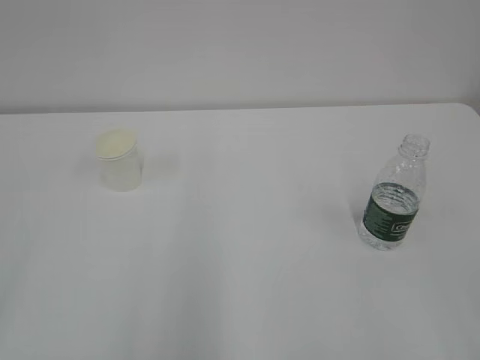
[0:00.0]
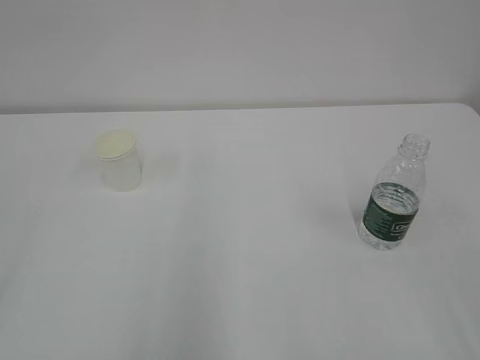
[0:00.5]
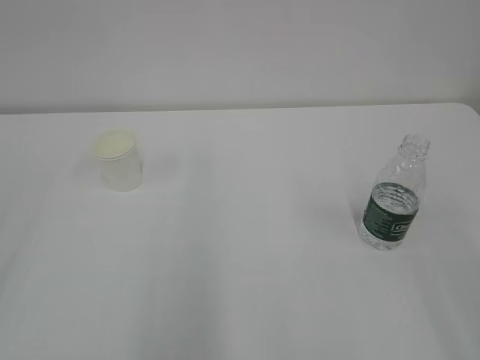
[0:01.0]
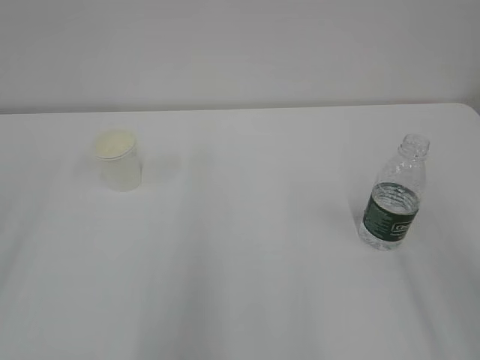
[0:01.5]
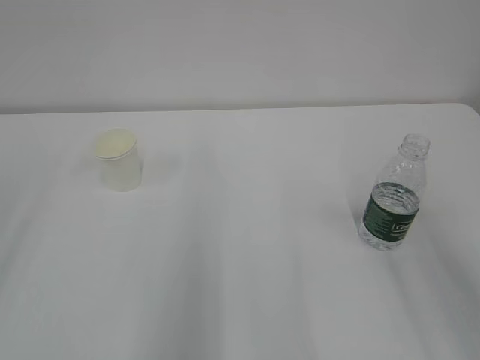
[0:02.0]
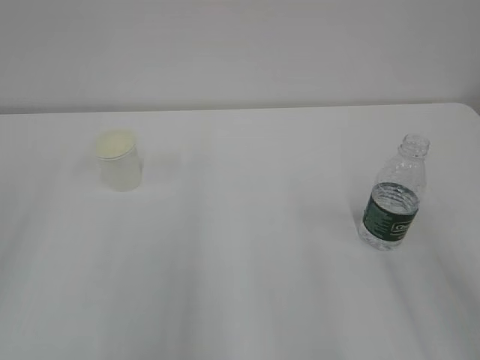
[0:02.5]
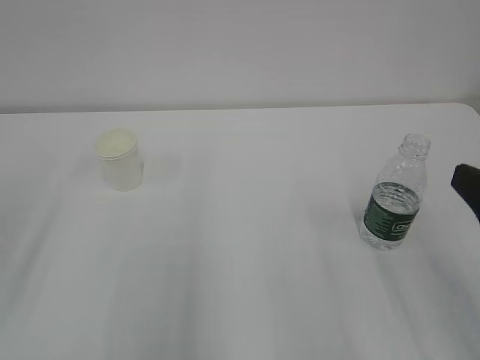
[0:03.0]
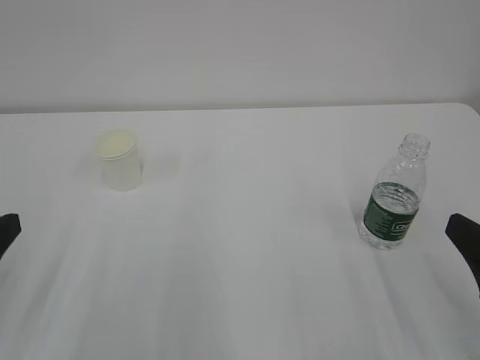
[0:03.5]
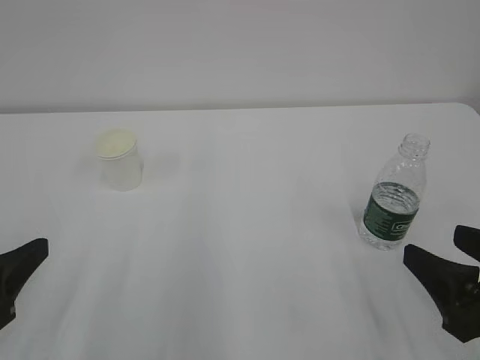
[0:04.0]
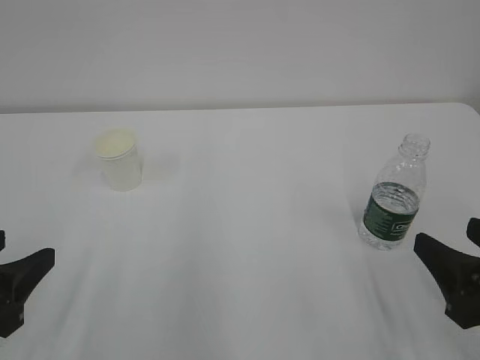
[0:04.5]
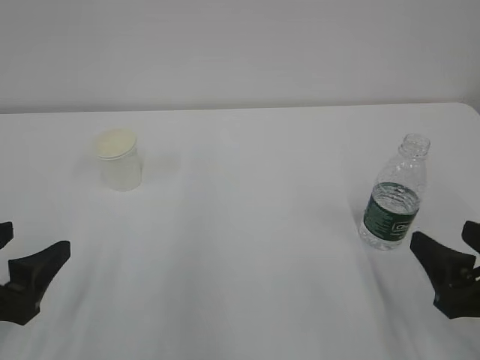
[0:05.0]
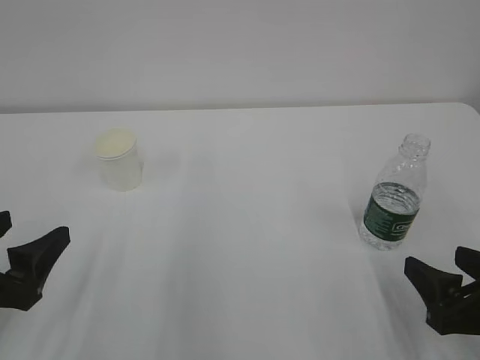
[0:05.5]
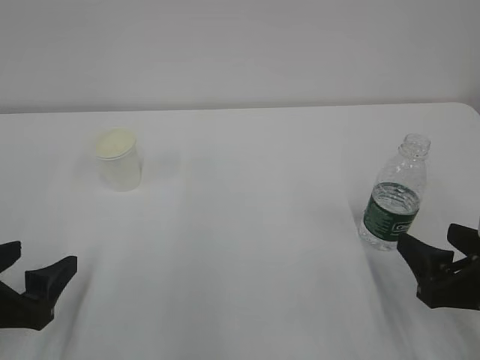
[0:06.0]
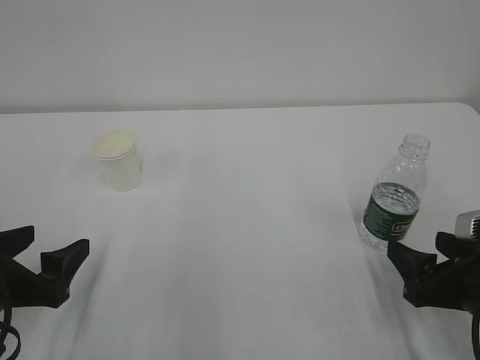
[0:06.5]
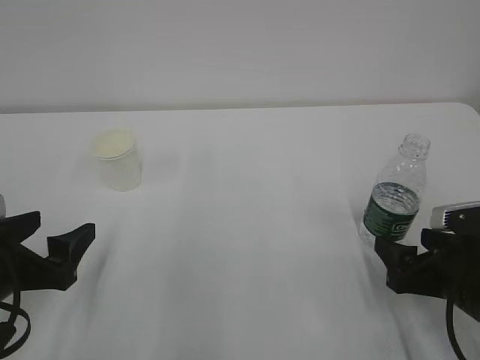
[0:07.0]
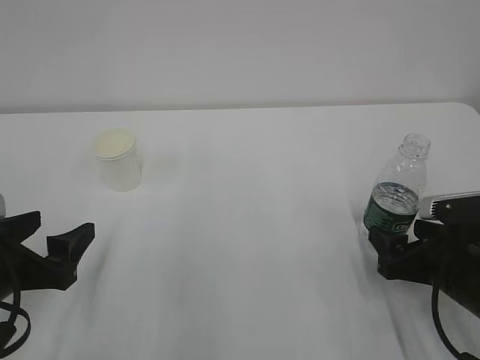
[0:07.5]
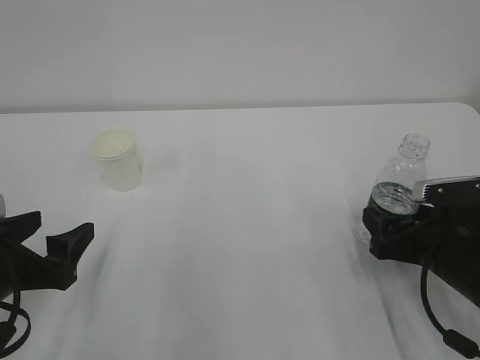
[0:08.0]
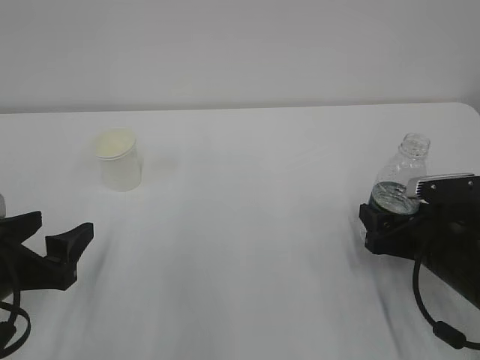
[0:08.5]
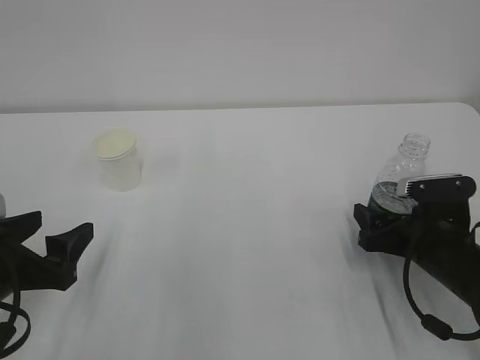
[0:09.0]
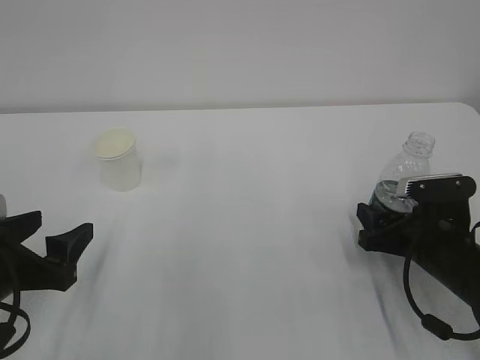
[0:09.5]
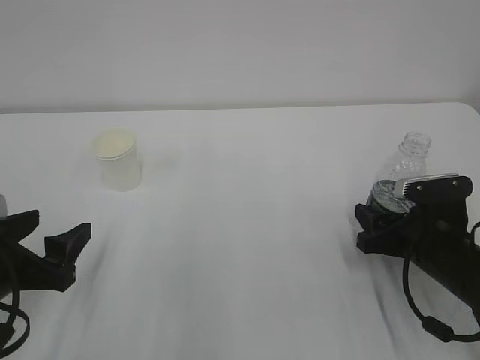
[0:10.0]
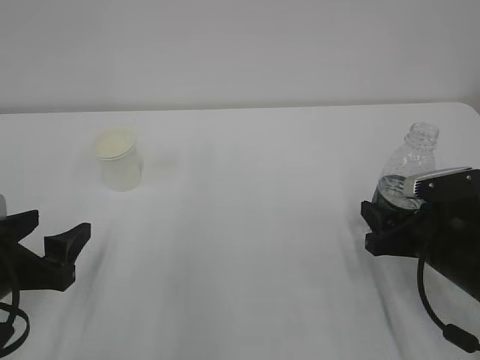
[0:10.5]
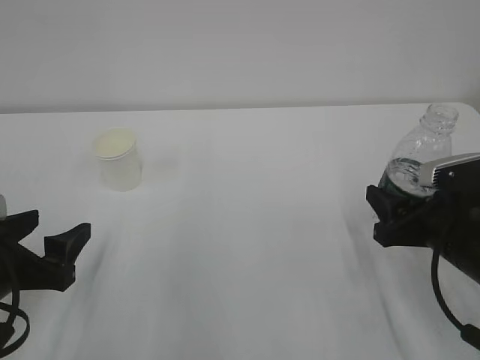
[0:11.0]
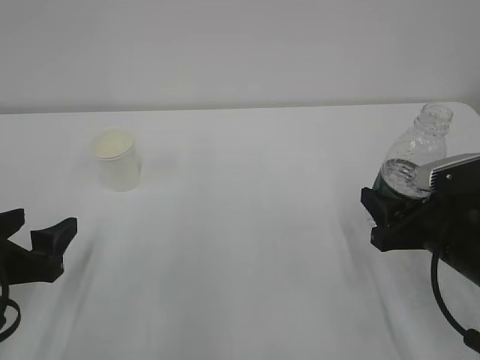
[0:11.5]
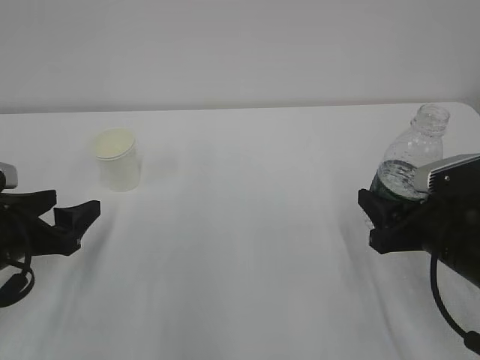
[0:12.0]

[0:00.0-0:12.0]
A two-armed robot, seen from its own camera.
0:02.0 to 0:04.0: The grippers both shift downward by roughly 15 cm.
0:04.0 to 0:06.0: The right gripper shifts by approximately 5 cm, while the left gripper goes some 5 cm downward, and opens.
0:06.0 to 0:08.0: The right gripper is displaced forward by about 10 cm.
0:08.0 to 0:10.0: The right gripper closes up.
0:10.0 to 0:12.0: The right gripper moves upward, approximately 5 cm. The left gripper travels forward by about 5 cm.

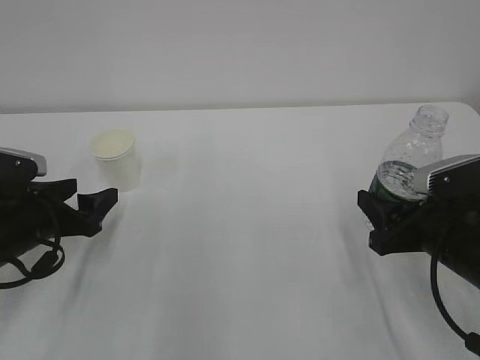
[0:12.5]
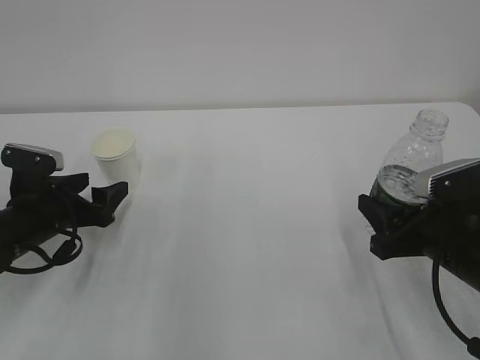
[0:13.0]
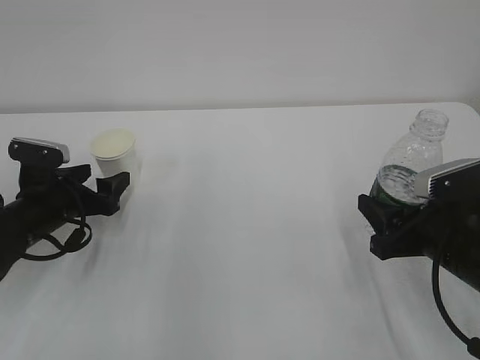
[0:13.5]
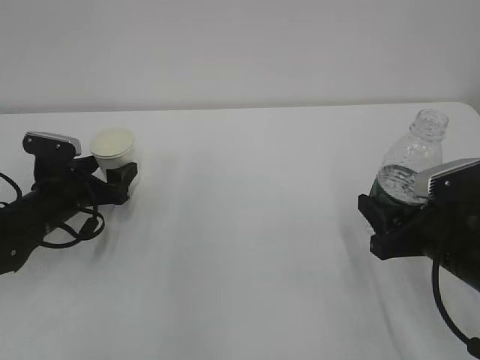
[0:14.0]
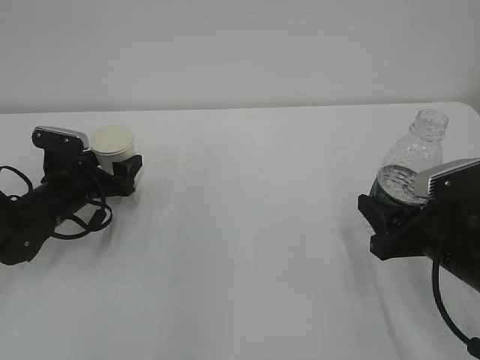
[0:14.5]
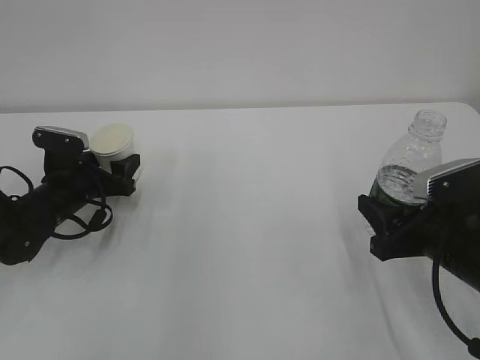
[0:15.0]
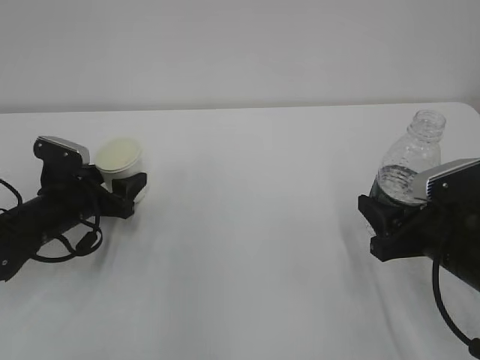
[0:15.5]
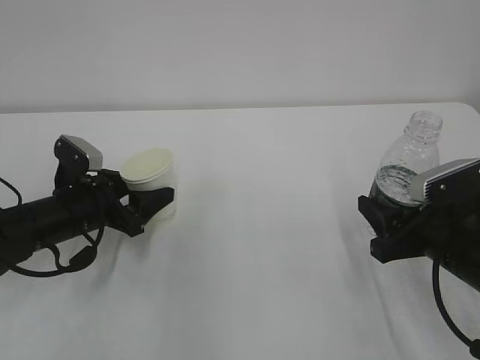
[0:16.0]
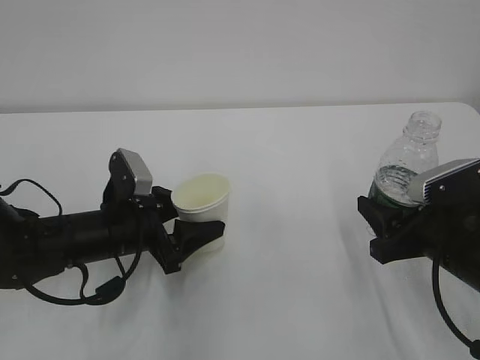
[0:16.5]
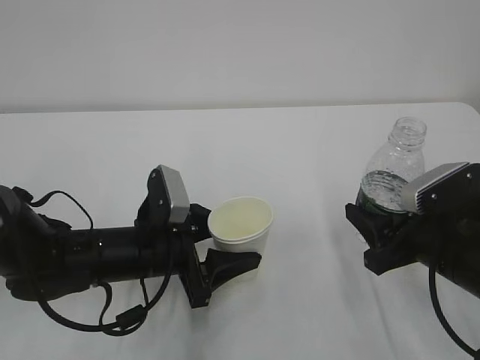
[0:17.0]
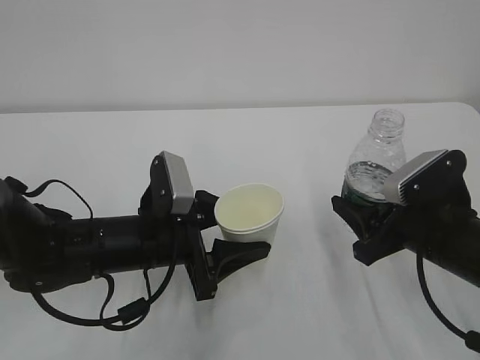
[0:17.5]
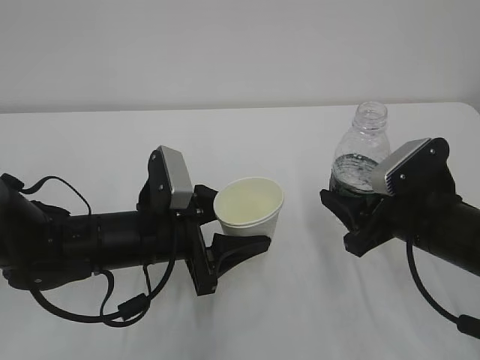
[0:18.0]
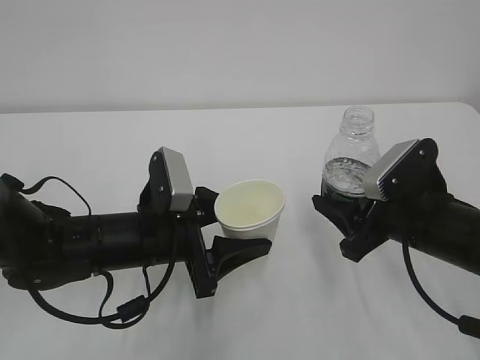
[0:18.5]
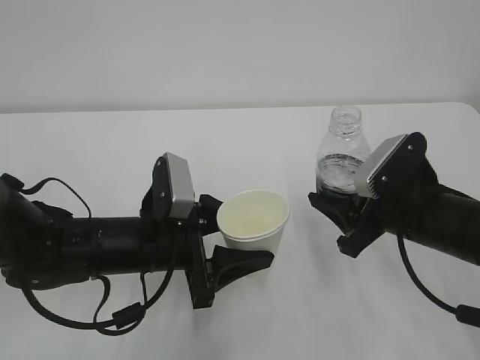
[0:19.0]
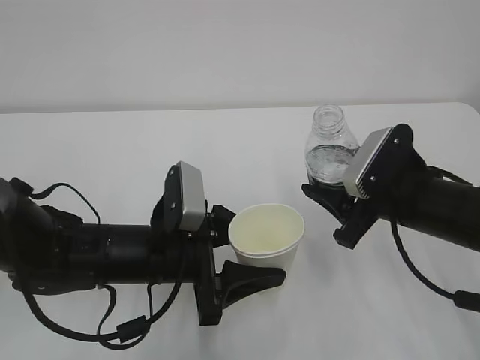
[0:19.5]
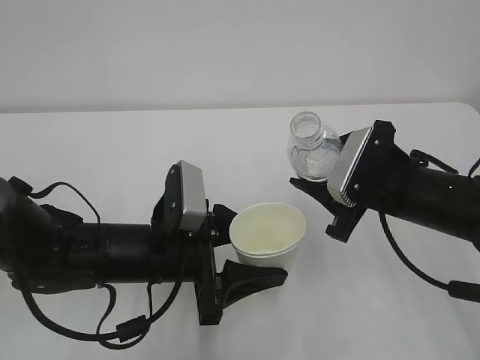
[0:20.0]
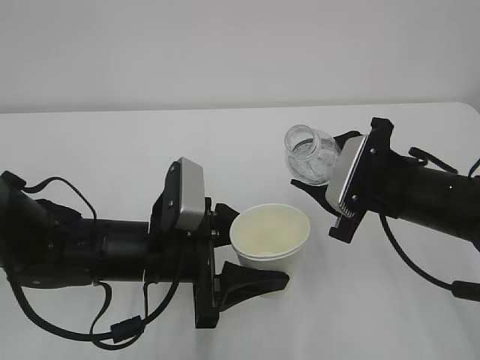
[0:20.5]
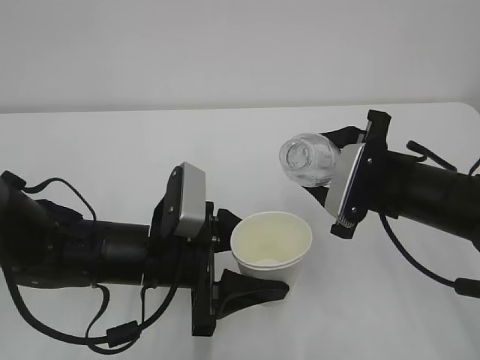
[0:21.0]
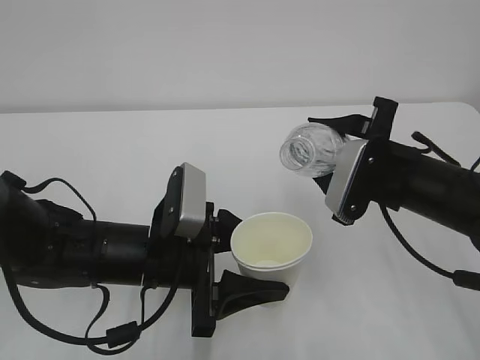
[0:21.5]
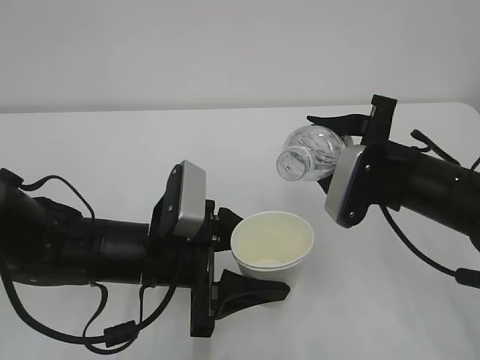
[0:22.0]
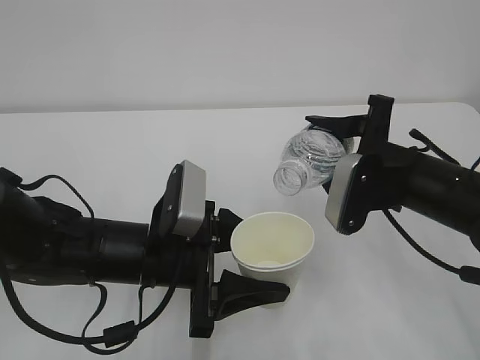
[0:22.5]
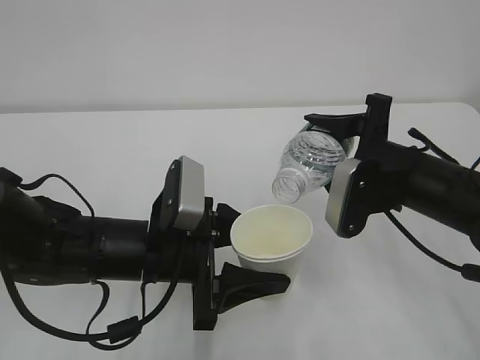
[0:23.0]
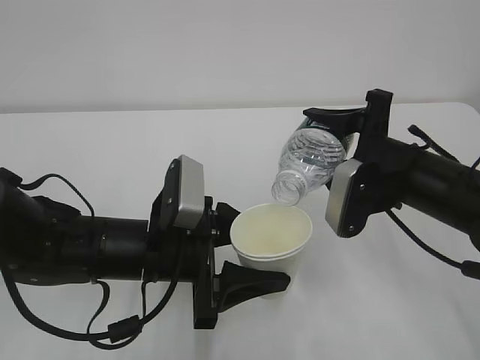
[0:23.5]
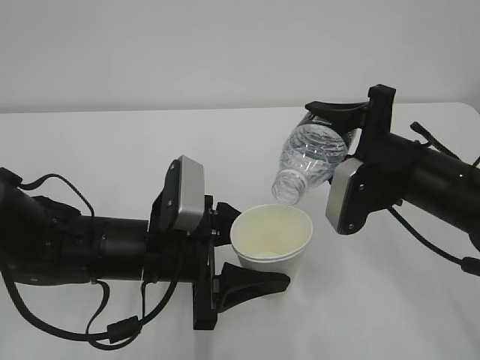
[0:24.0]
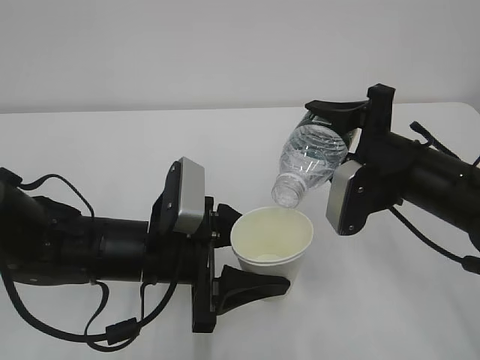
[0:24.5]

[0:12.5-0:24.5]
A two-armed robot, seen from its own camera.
0:12.5 to 0:14.5: The left gripper shifts roughly 10 cm forward.
0:14.5 to 0:16.5: The left gripper is displaced to the right and backward by roughly 15 cm, and closes.
0:16.5 to 0:18.5: The left gripper shifts by approximately 5 cm.
0:22.5 to 0:24.5: There are only small adjustments of the grippers.

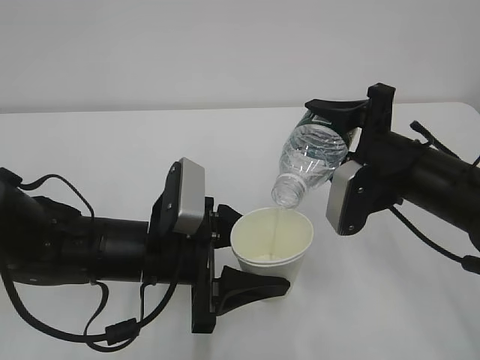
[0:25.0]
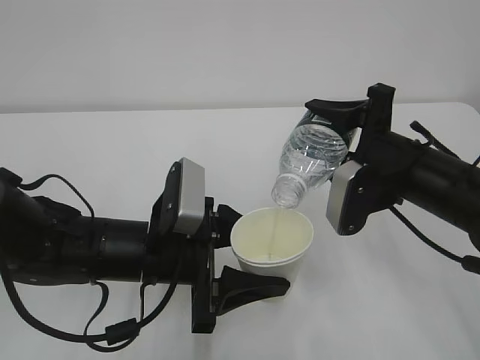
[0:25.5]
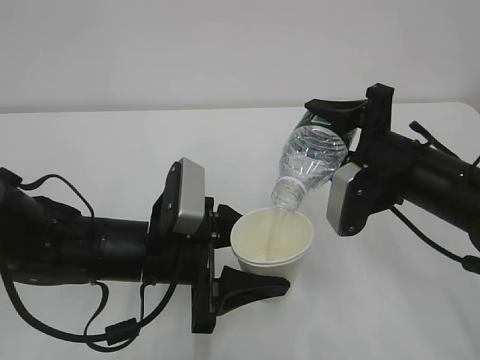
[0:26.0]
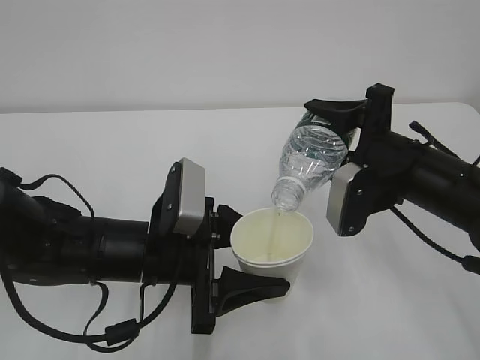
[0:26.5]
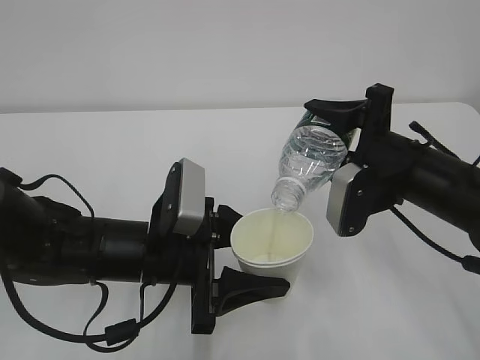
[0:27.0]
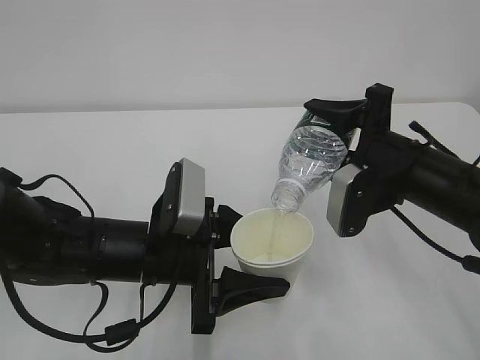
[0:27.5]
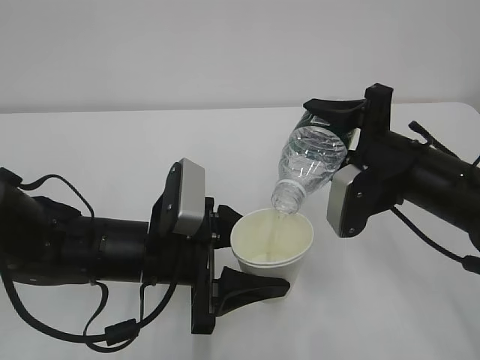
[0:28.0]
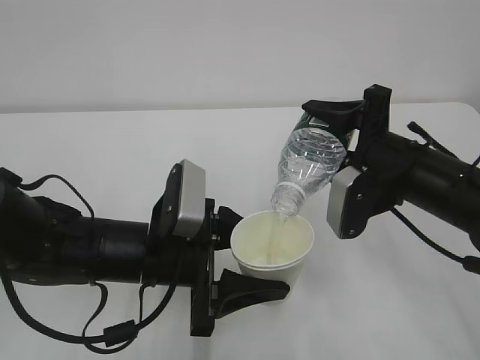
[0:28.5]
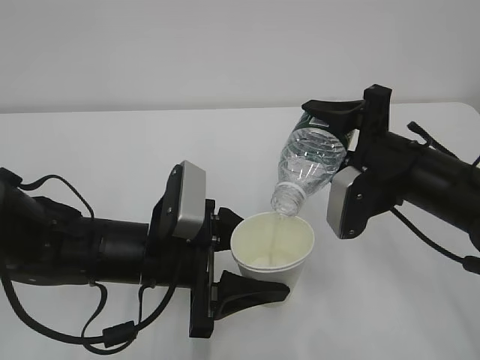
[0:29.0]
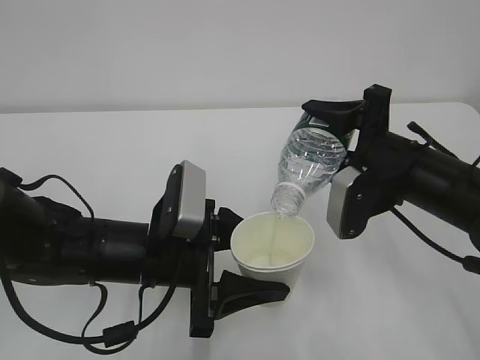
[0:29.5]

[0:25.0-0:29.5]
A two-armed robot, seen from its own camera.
0:25.0 to 0:29.5: Both grippers stay put.
